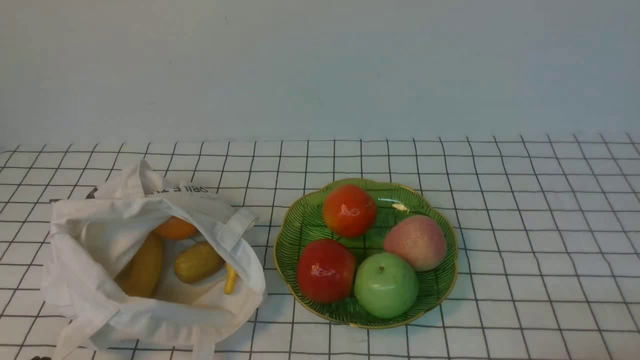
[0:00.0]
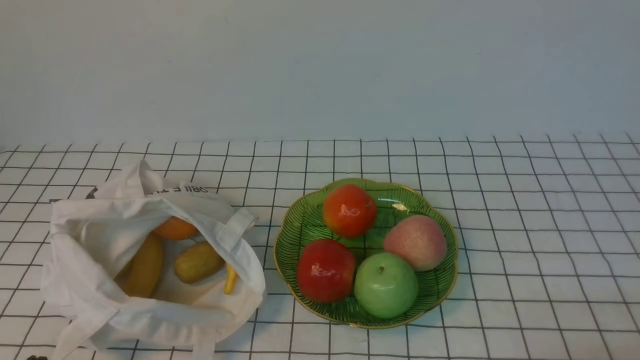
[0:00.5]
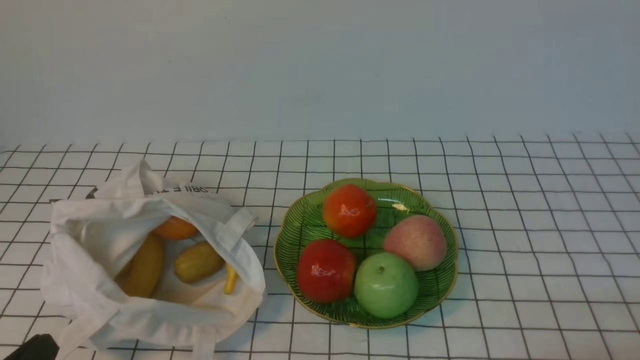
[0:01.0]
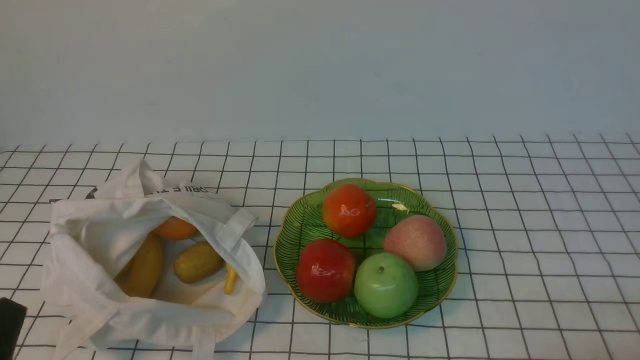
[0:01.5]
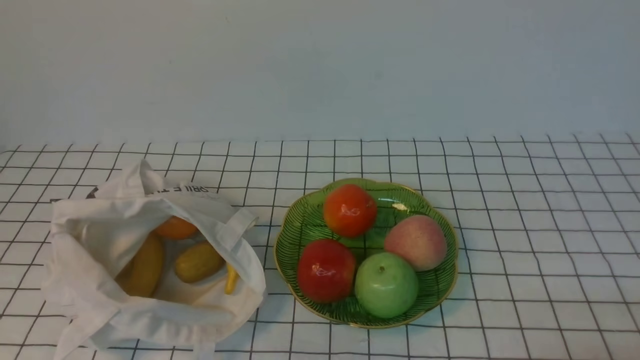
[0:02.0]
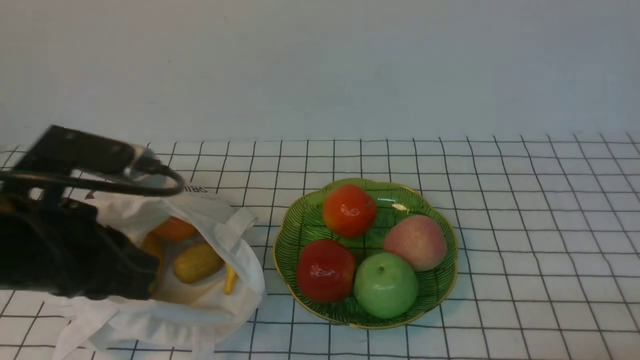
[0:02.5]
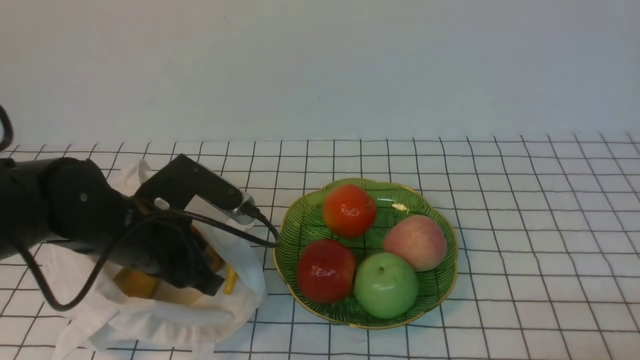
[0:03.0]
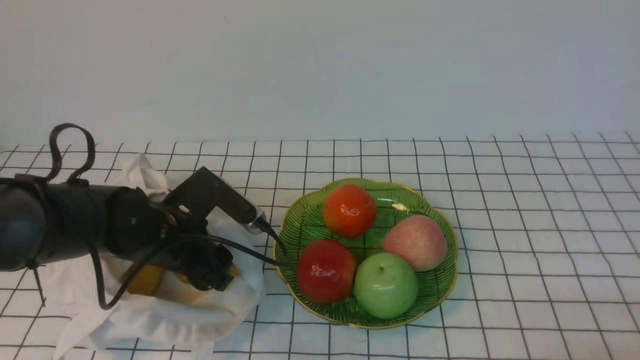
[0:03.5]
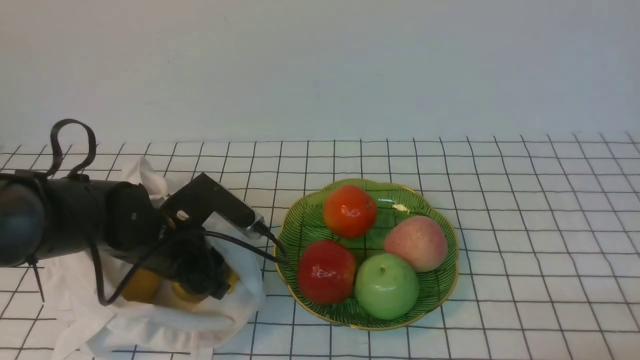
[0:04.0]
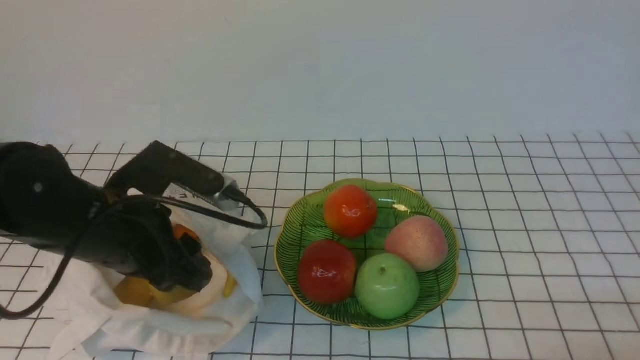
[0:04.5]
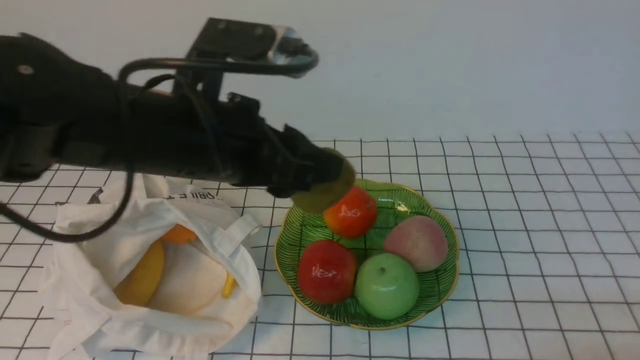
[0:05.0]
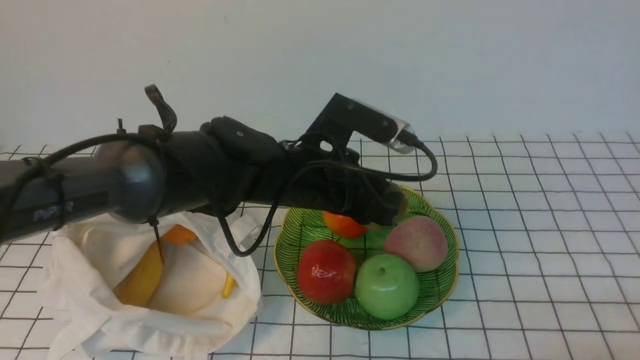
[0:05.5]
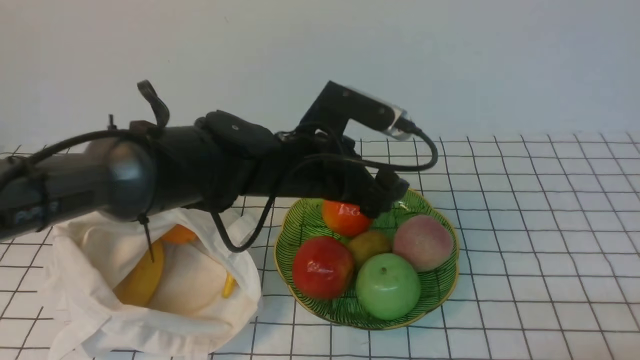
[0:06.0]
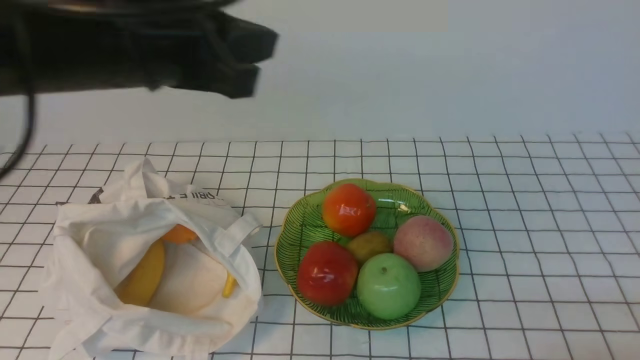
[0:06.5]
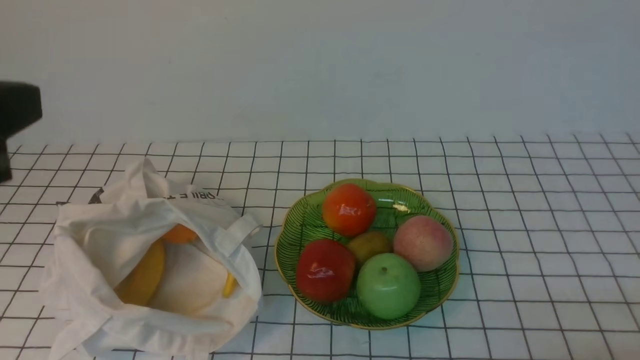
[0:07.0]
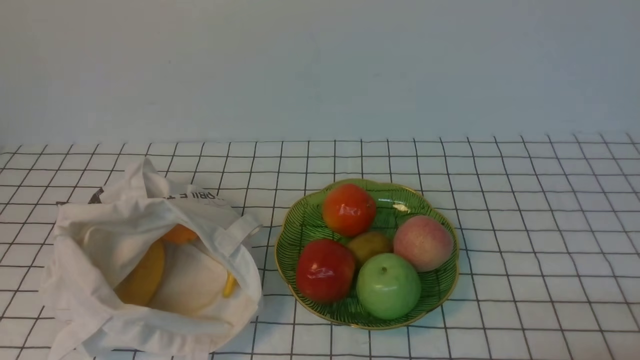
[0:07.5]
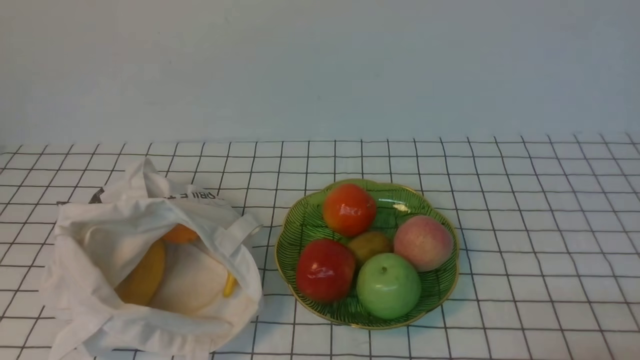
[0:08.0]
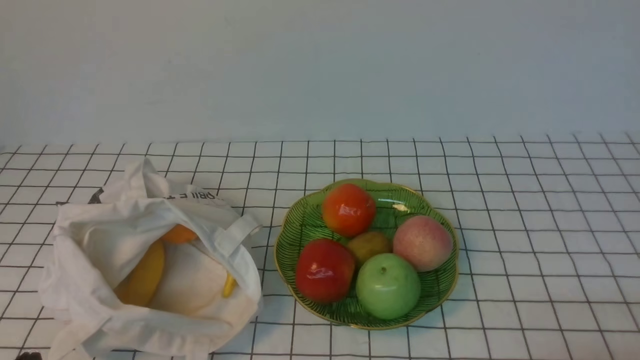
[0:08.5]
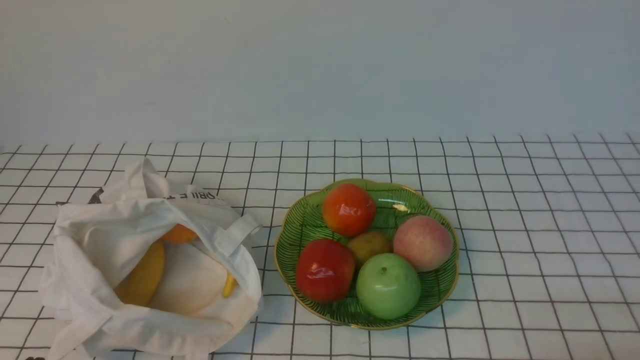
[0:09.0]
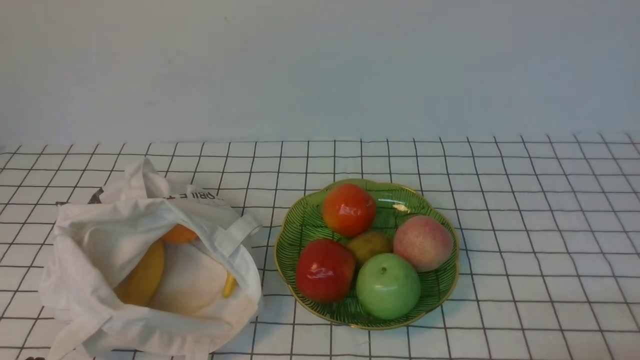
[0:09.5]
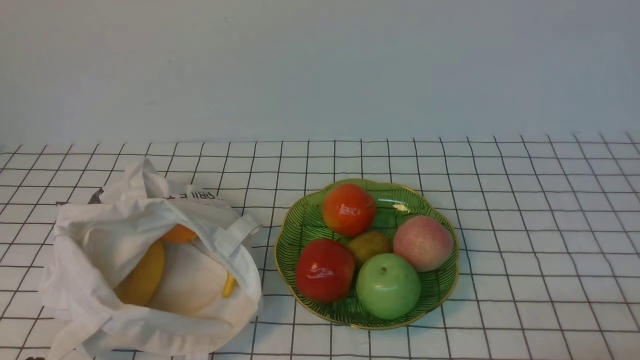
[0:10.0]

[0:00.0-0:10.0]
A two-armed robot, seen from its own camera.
Step, 0:00.0 to 0:04.0: use the left arm to grab a kiwi from the bag.
Step, 0:04.5 to 0:05.5: use the left arm to put the kiwi into the empty plate on the right.
0:02.0 to 0:04.0: The left gripper is displaced forward and downward by roughly 25 cm, and opens up.
0:04.0 to 0:06.0: The left gripper moves to the right and upward, about 15 cm.
0:06.0 to 0:08.0: The left gripper moves backward and to the left, approximately 40 cm, and closes up.

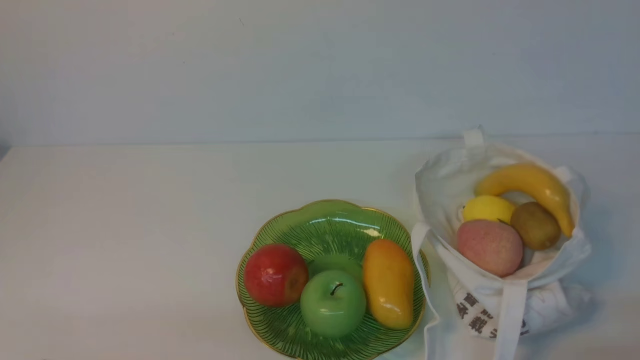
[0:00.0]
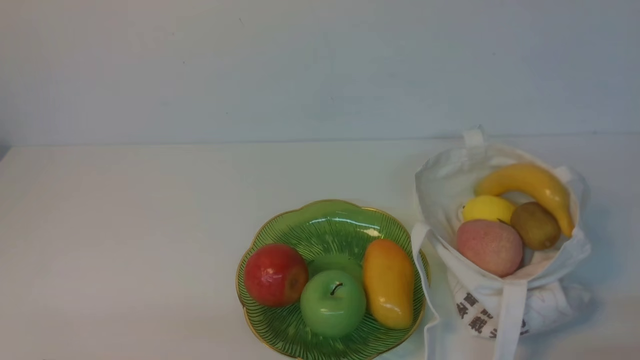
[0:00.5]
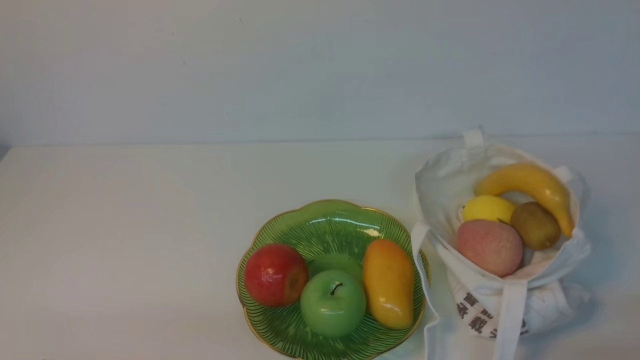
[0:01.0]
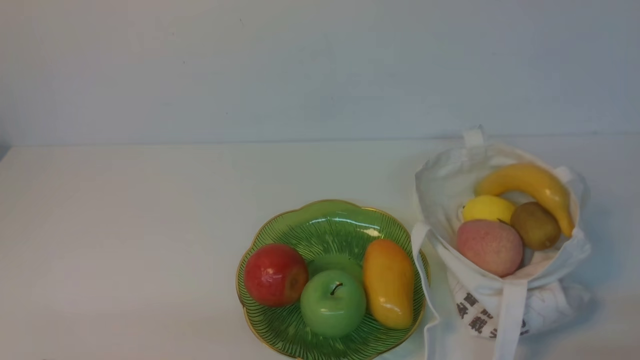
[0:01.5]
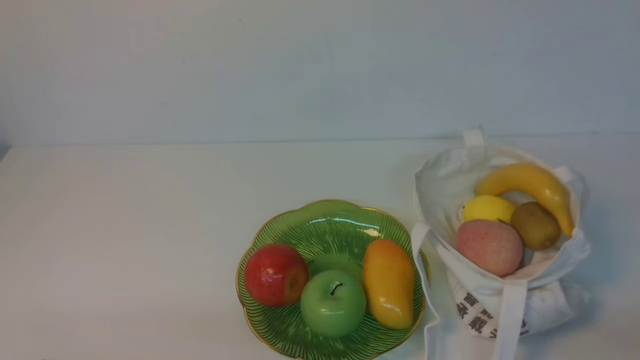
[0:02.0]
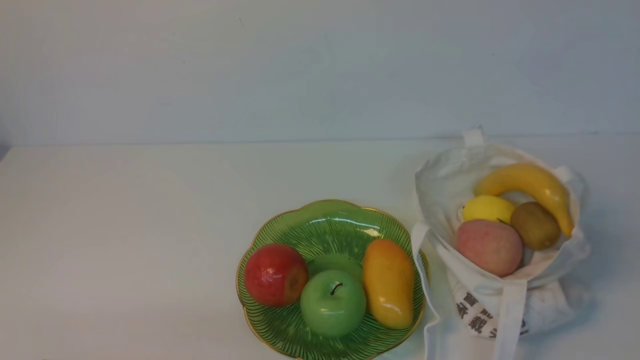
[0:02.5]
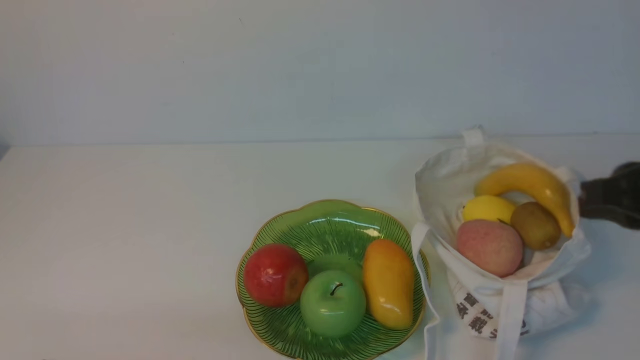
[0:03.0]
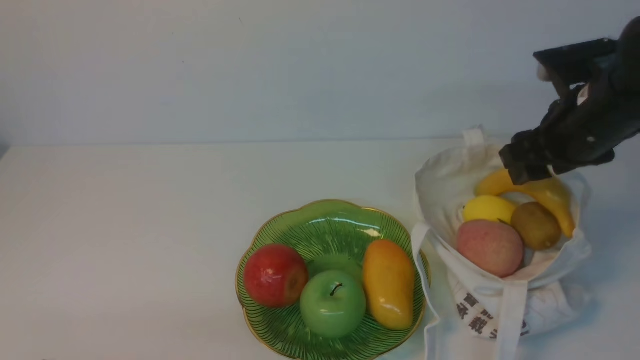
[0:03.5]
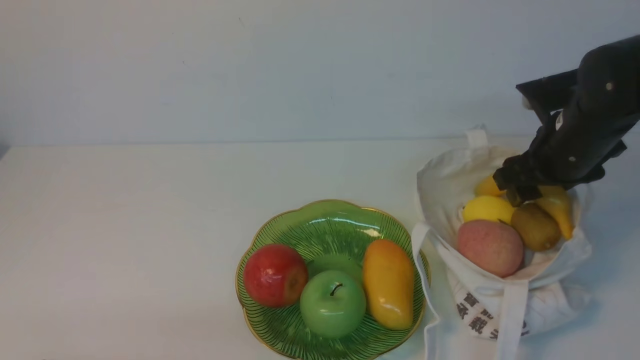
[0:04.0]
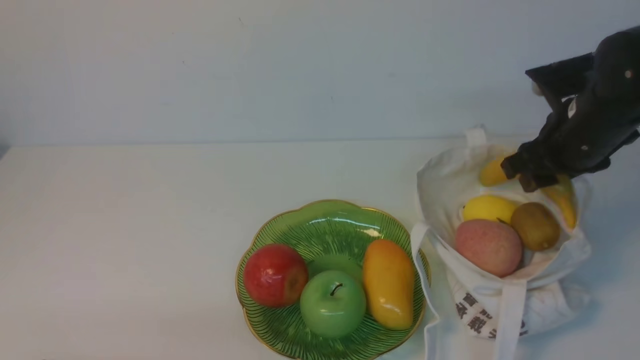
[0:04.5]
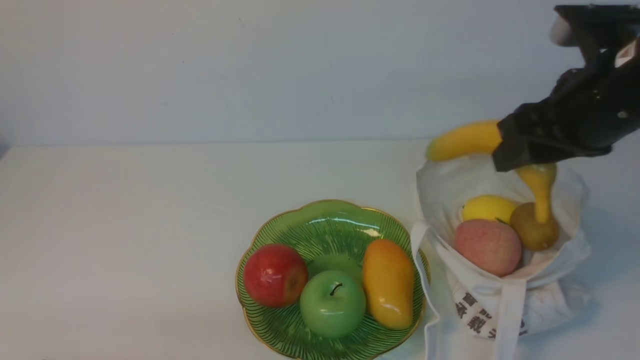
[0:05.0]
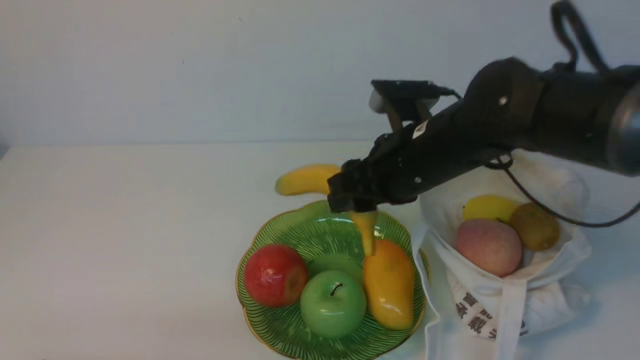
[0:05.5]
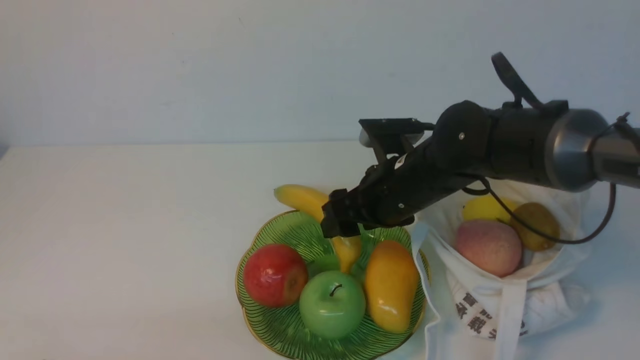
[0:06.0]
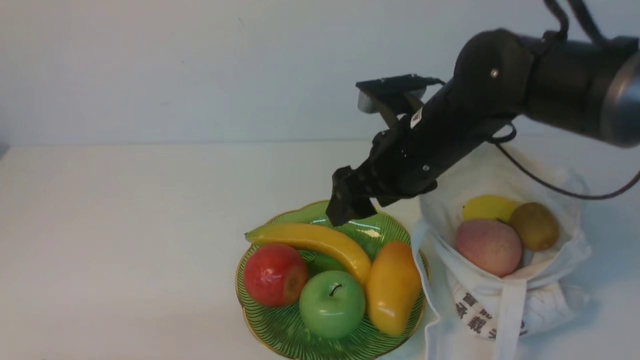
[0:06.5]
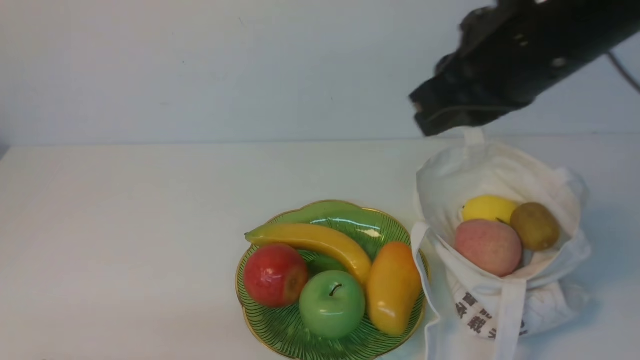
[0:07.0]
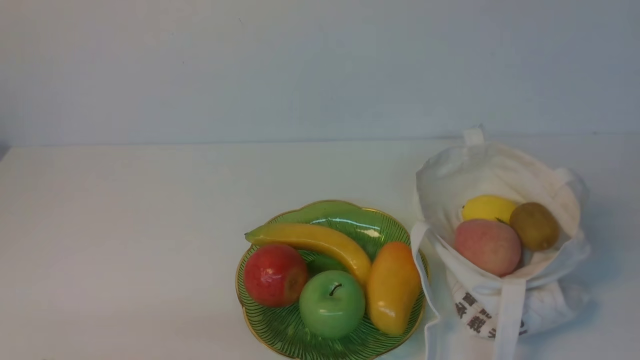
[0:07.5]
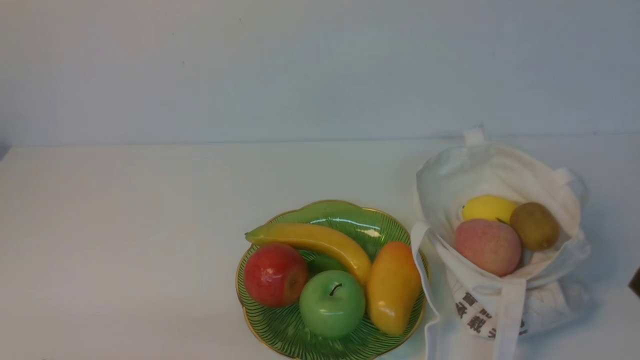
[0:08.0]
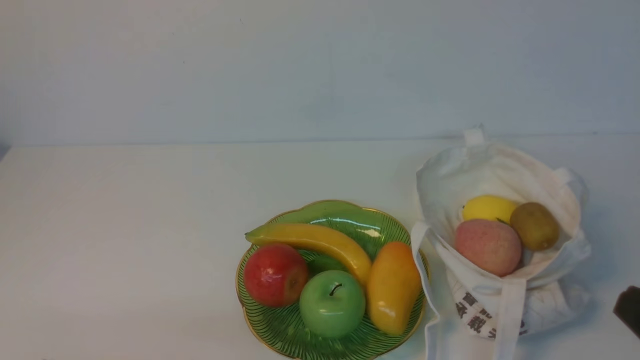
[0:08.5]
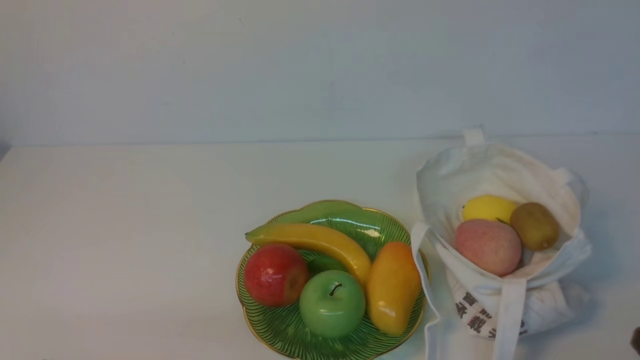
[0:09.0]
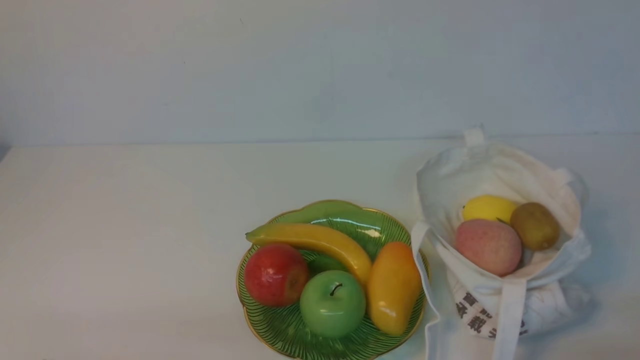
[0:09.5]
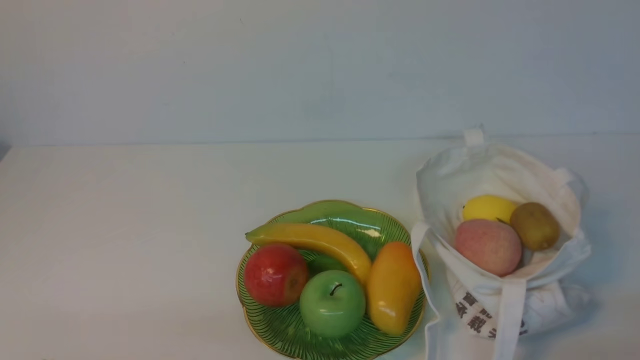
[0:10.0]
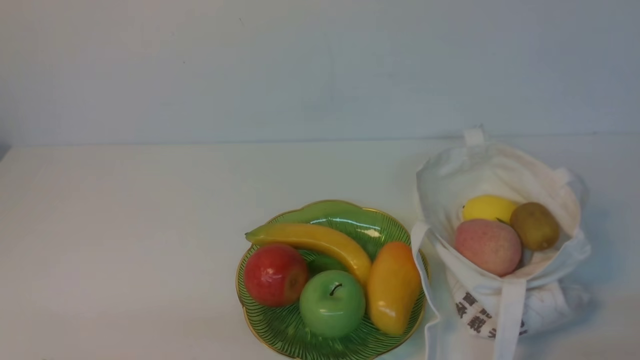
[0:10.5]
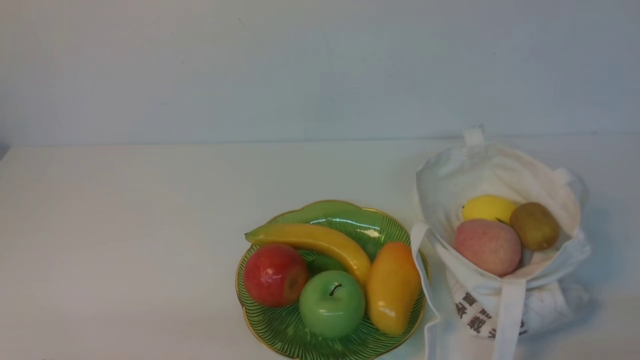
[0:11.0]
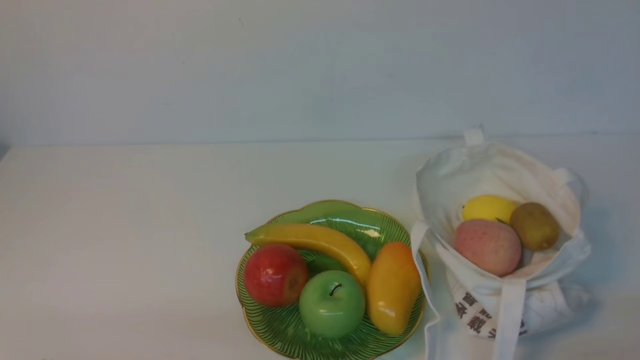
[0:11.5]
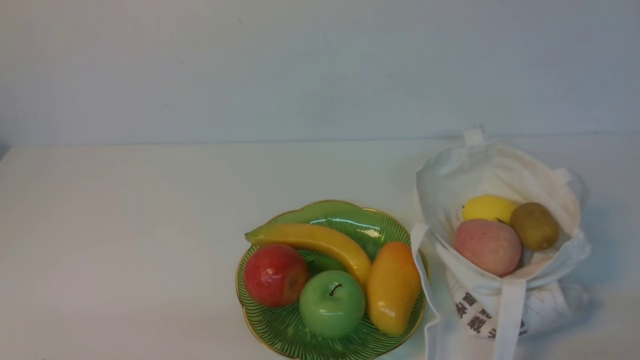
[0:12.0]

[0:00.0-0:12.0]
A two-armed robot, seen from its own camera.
Step, 0:00.0 to 0:04.0: use the right arm to grab a banana from the bag.
Step, 0:04.5 to 0:06.0: use the right arm to put the banana into the empty plate on the right.
0:02.0 to 0:04.0: The right gripper moves forward, some 30 cm, and opens.
0:04.0 to 0:06.0: The right gripper is displaced to the left by about 15 cm.
0:06.0 to 0:08.0: The right gripper goes approximately 35 cm backward and to the right, and closes up.
0:10.0 to 0:12.0: Both grippers stay about where they are.
